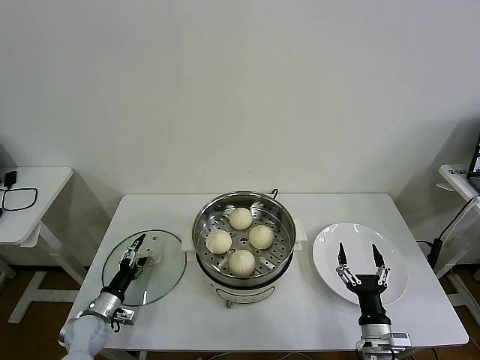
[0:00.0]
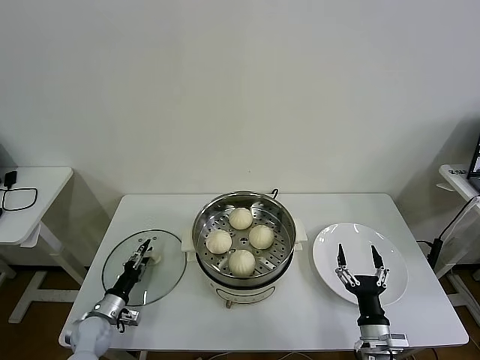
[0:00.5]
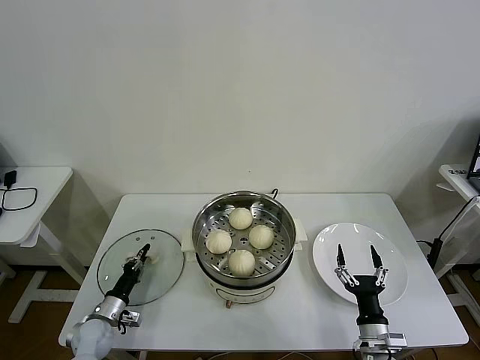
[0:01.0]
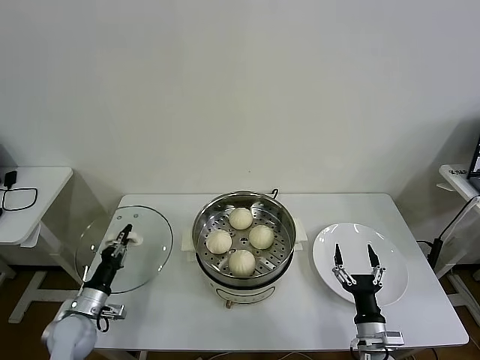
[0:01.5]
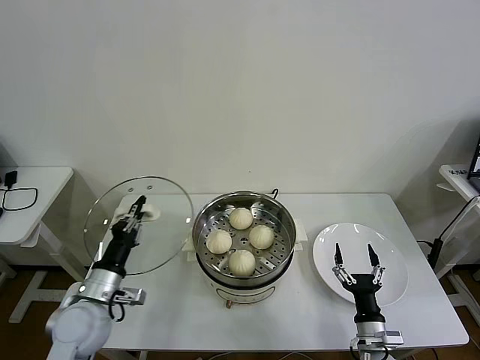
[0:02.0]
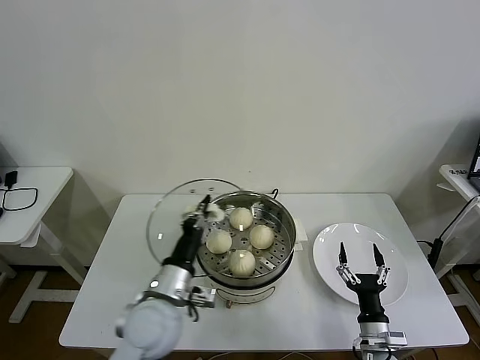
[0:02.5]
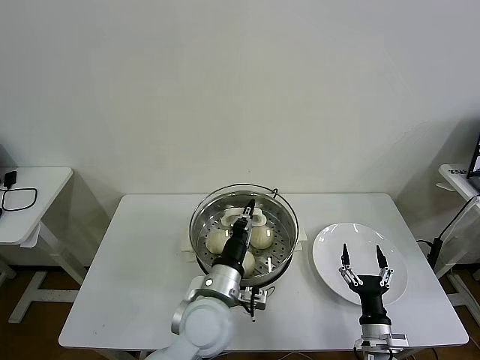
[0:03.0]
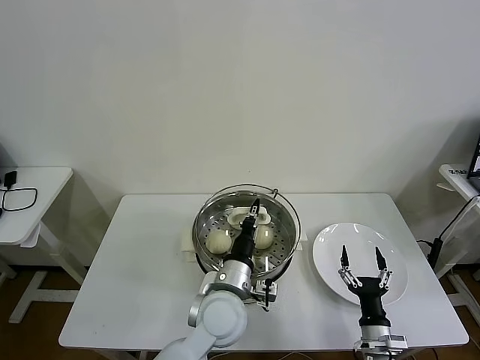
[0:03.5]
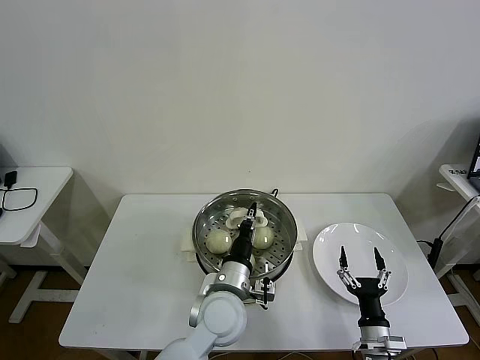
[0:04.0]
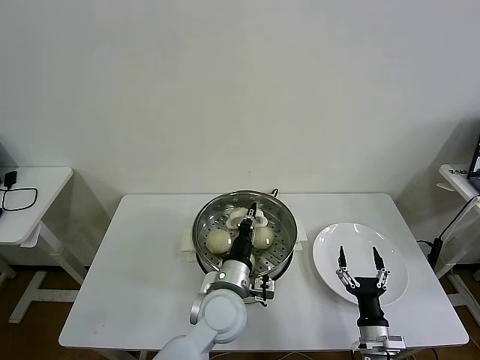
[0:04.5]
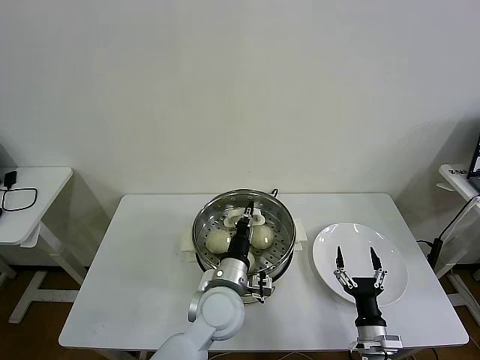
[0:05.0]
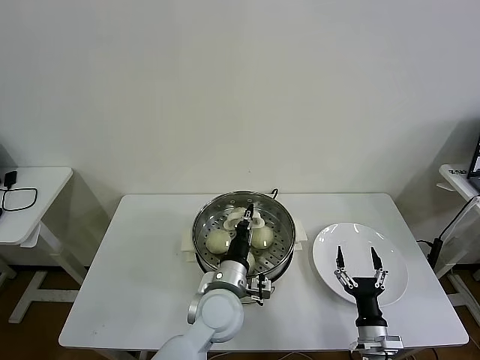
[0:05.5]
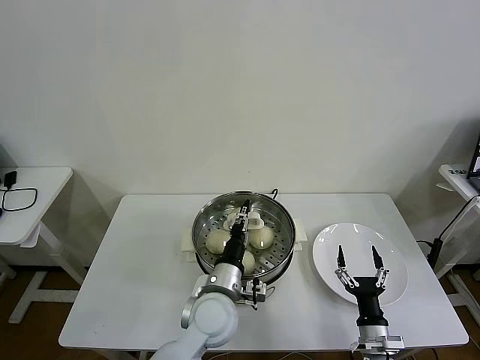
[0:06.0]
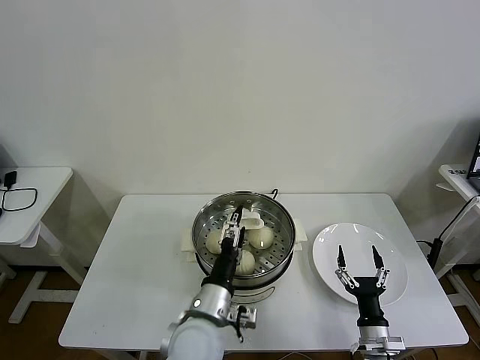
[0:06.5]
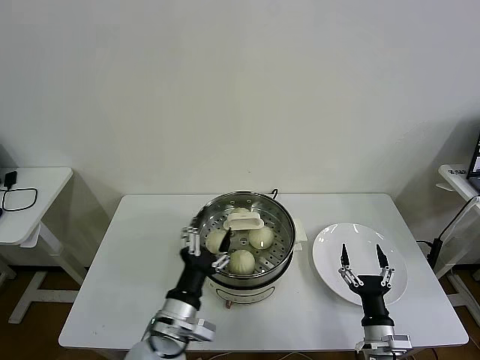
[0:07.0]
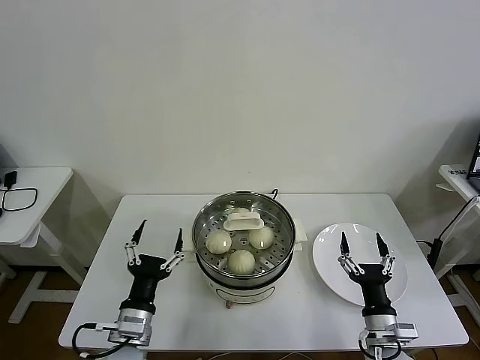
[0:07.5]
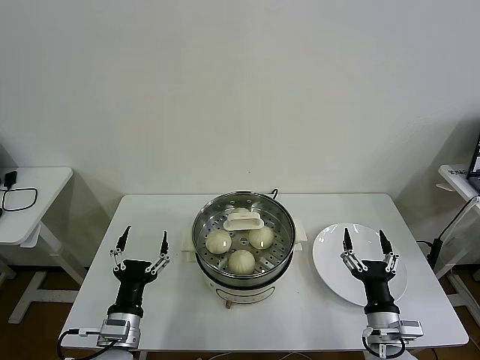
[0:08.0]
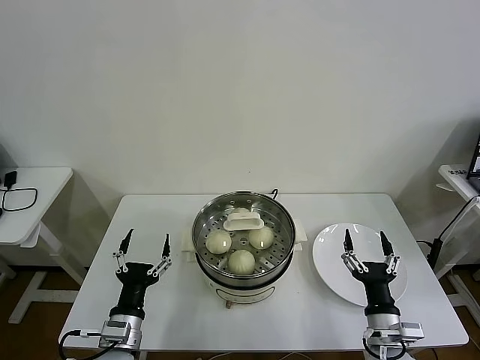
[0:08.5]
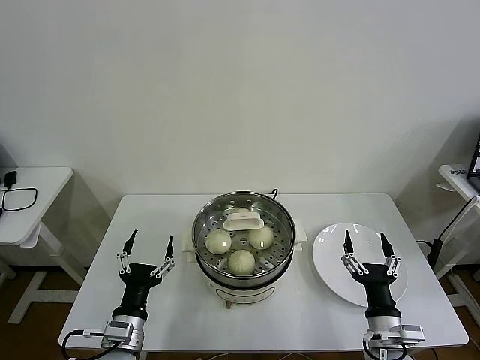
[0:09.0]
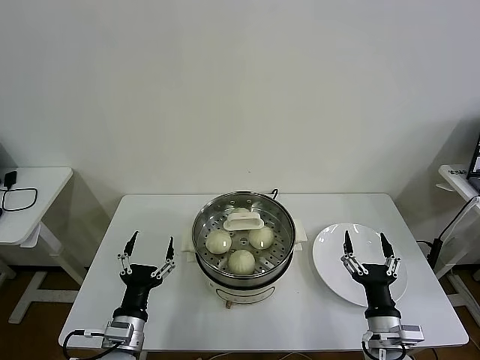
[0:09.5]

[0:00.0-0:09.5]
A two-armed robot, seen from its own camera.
Task of the whole recording: take steamed baozi put them in steamer then cover it.
Step, 0:01.5 to 0:06.0: Place the pot lid on the steamer with left gripper.
0:00.0 to 0:02.0: The left gripper heads upward and to the right, covering about 20 cm, and closes its fingers.
0:02.0 to 0:04.0: The left gripper heads to the right, covering roughly 25 cm.
0:04.0 to 0:05.5: The grippers move only a little.
0:05.5 to 0:07.5: The right gripper goes roughly 5 cm upward; the left gripper shifts some 20 cm to the left and backward, and opens its fingers.
0:07.5 to 0:09.5: The grippers stay close to where they were, moving slightly.
